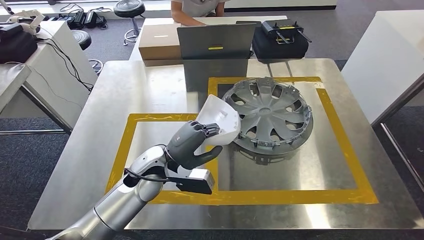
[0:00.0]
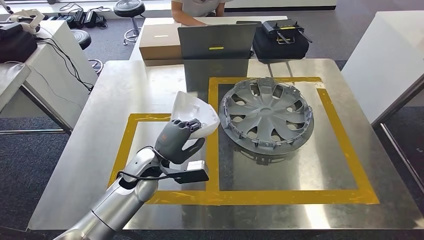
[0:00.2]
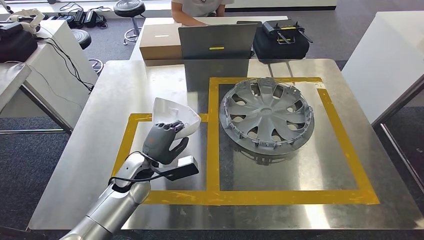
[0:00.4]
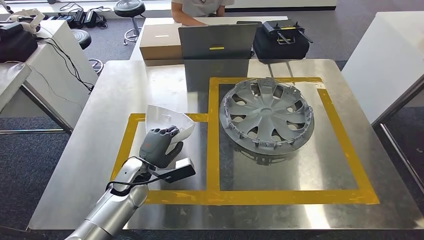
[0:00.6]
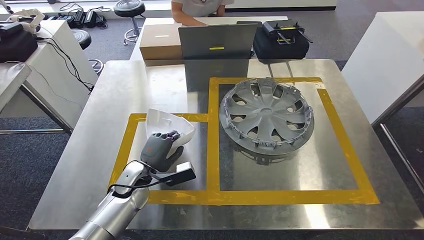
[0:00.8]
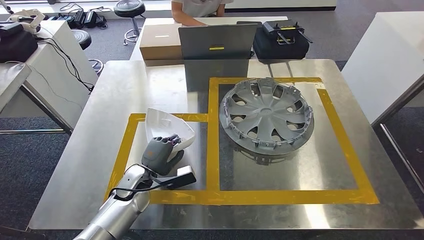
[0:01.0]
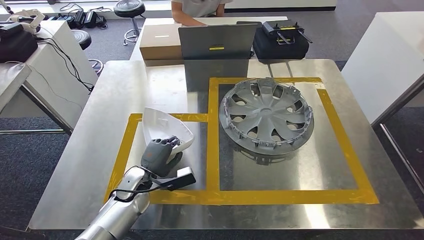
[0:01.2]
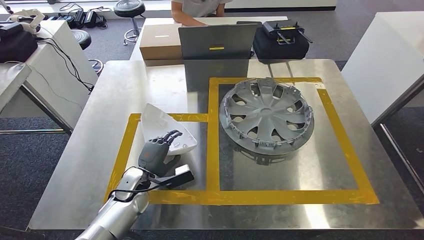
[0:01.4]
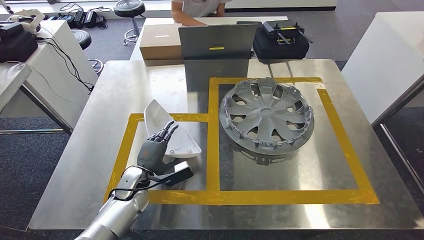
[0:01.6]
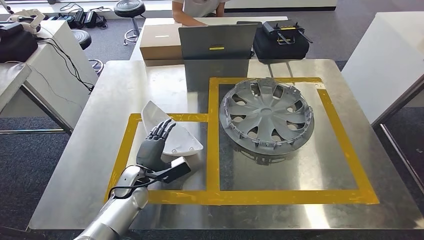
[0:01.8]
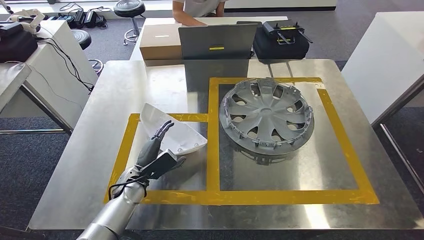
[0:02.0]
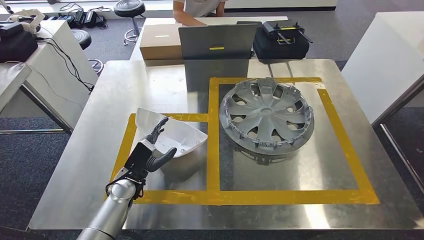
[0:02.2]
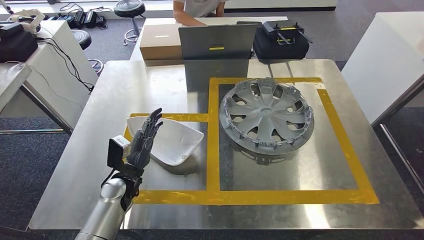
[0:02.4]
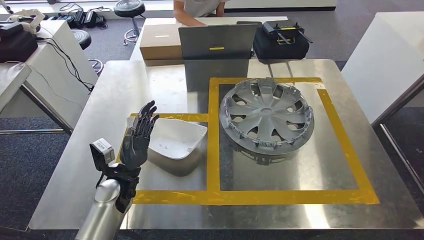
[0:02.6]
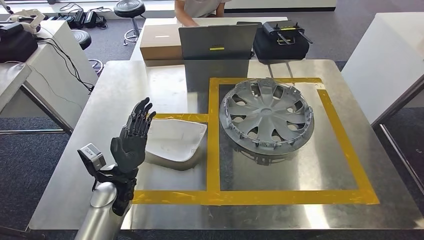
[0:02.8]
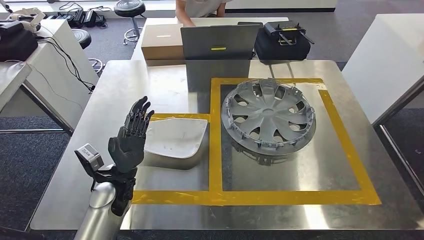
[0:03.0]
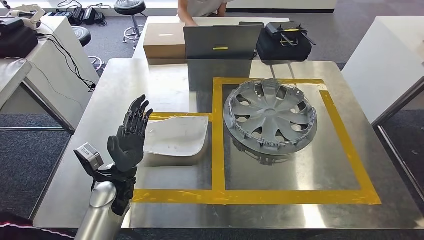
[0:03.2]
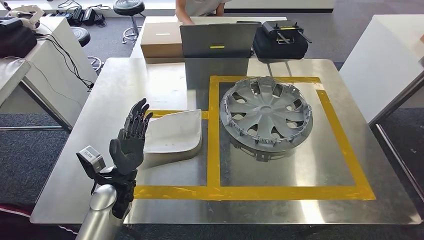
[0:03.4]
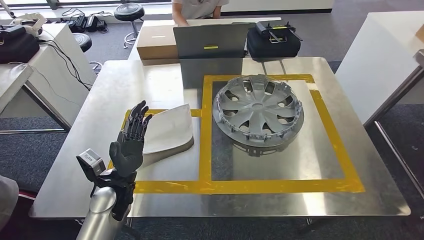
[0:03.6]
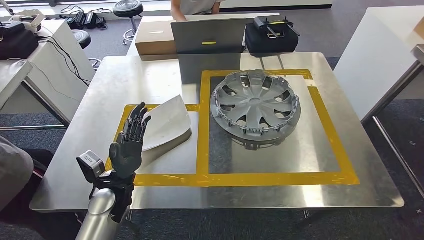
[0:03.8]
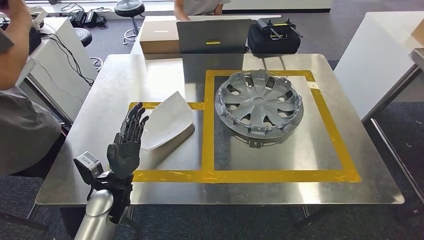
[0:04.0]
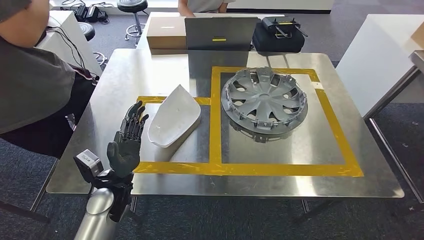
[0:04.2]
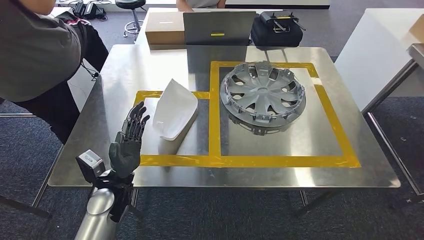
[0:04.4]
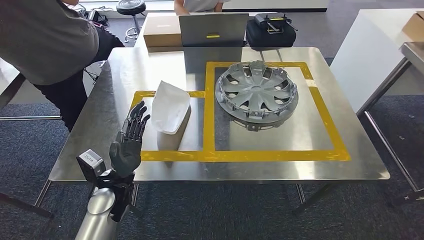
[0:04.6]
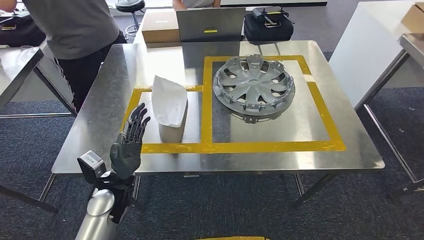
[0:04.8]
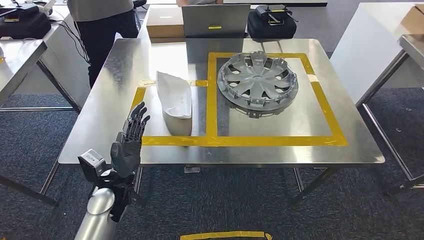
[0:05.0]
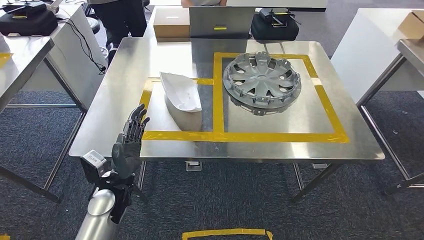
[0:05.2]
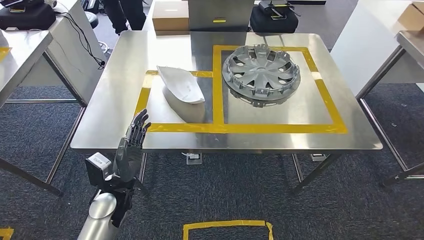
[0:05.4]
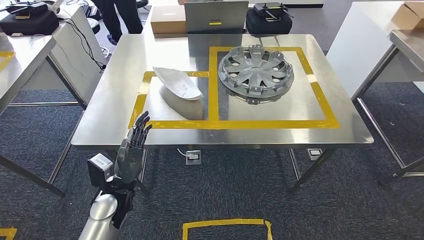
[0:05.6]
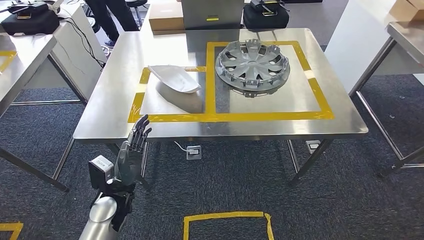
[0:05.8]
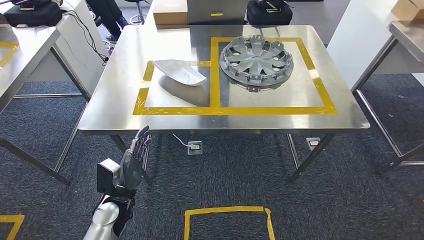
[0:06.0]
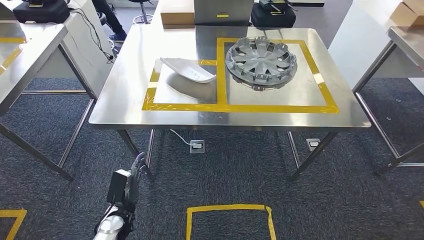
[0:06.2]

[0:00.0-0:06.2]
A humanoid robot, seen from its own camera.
Step, 0:00.0 to 0:03.4: Insert the small parts into the corresponding holes on the workbench.
Step, 0:03.6 to 0:06.2: Move to the initial position at the workbench.
0:00.0 to 0:01.6: The left hand is displaced downward and to the left by some 15 cm.

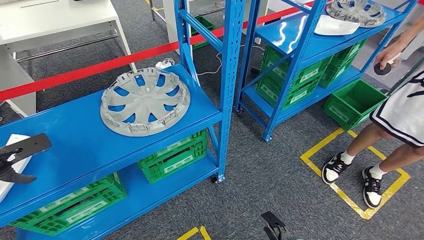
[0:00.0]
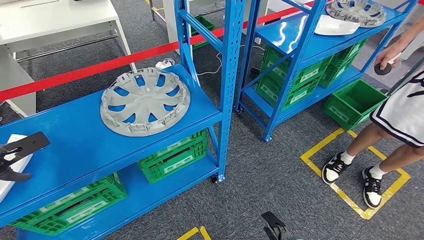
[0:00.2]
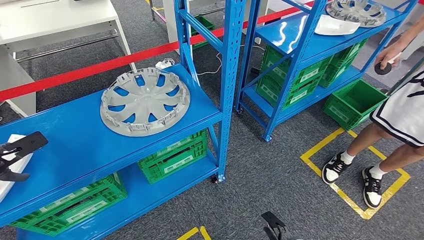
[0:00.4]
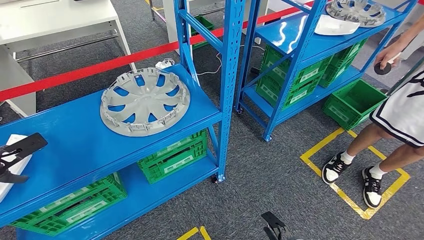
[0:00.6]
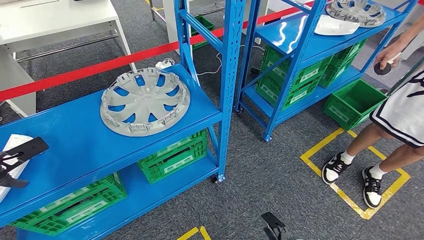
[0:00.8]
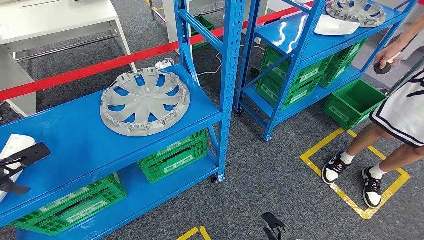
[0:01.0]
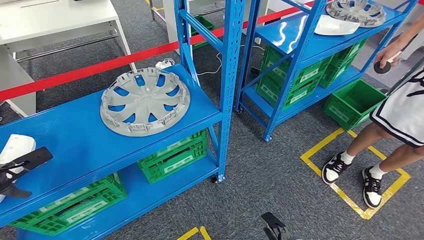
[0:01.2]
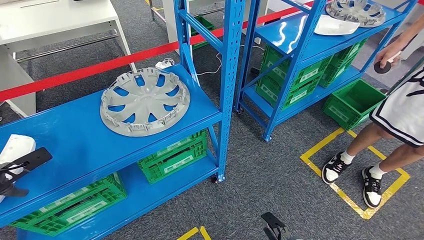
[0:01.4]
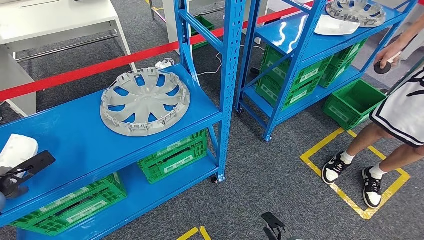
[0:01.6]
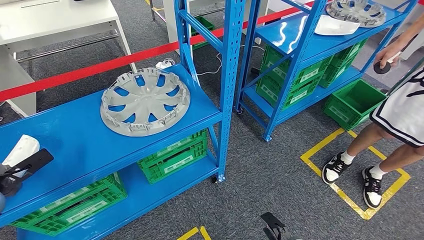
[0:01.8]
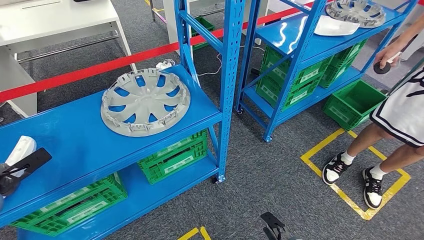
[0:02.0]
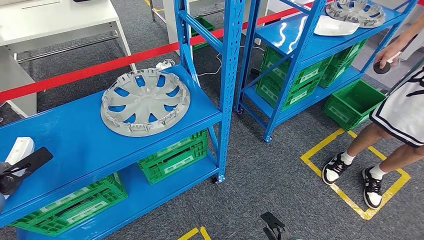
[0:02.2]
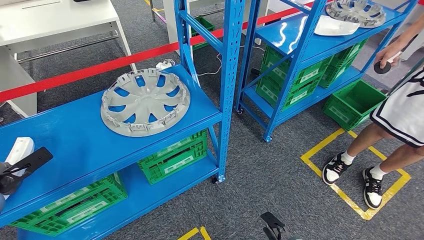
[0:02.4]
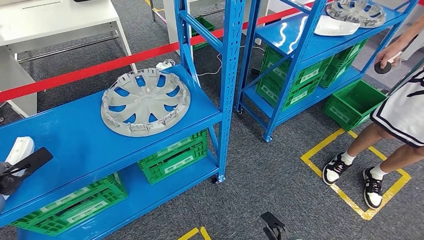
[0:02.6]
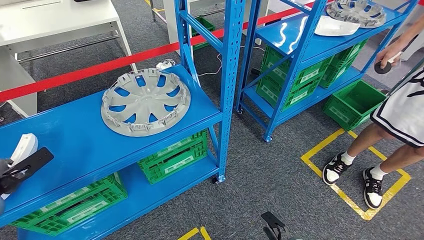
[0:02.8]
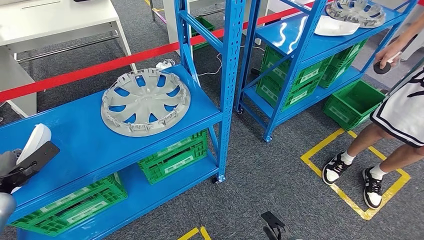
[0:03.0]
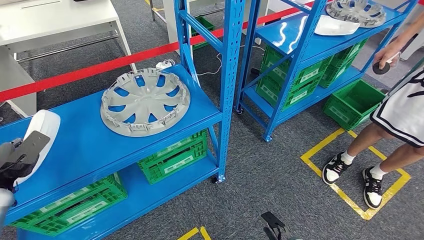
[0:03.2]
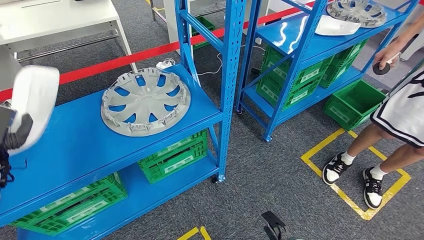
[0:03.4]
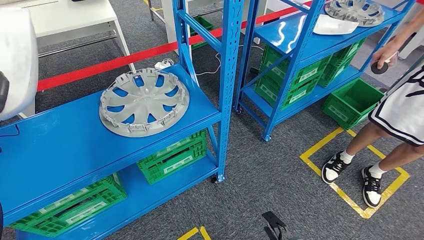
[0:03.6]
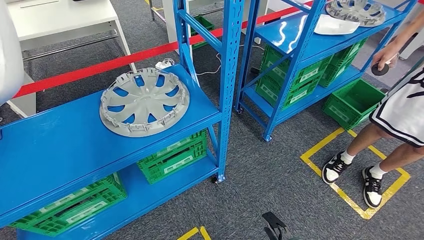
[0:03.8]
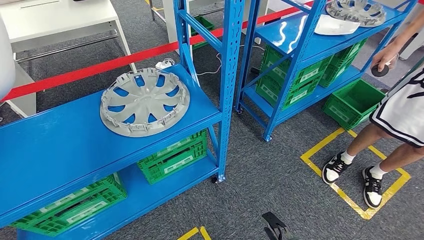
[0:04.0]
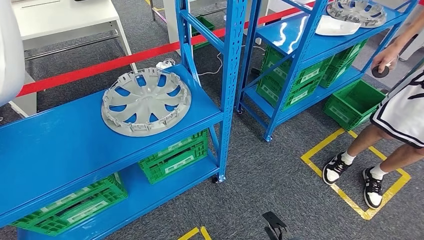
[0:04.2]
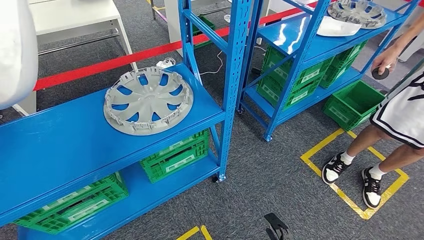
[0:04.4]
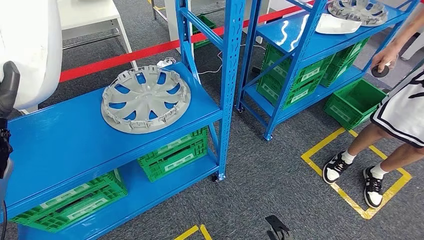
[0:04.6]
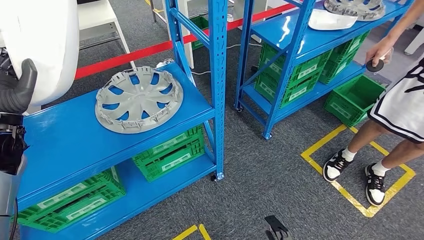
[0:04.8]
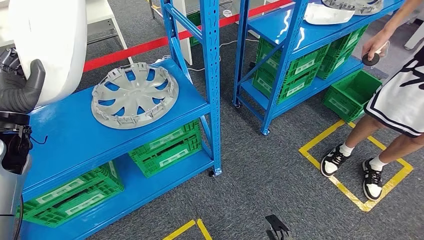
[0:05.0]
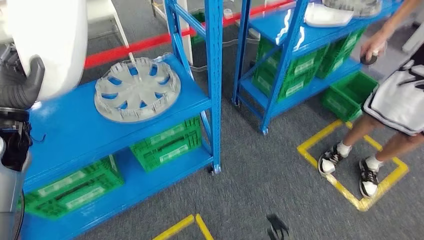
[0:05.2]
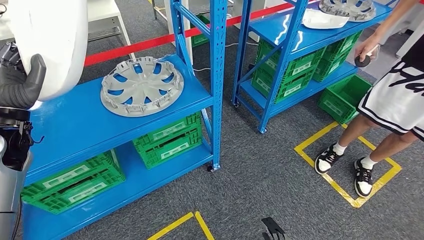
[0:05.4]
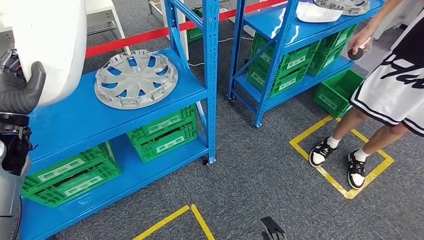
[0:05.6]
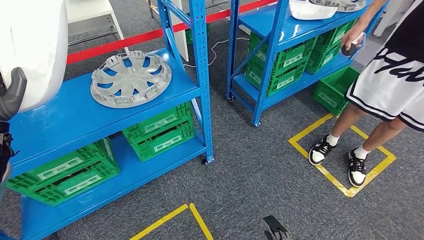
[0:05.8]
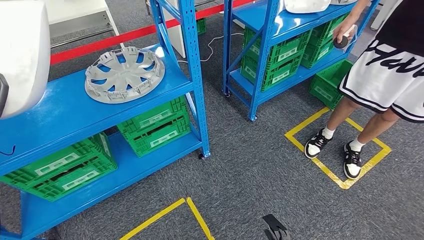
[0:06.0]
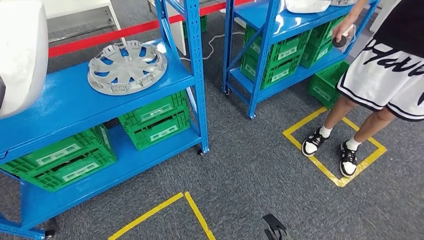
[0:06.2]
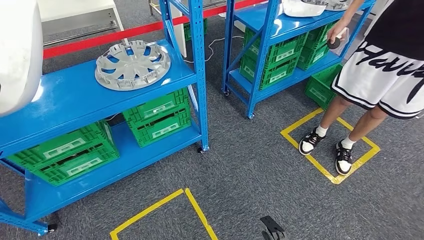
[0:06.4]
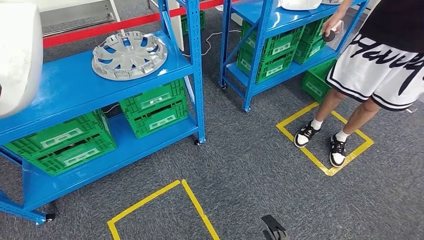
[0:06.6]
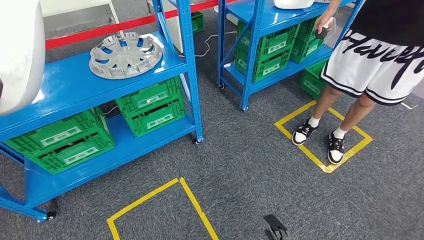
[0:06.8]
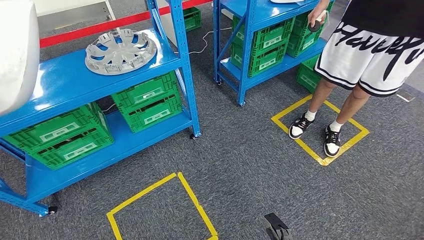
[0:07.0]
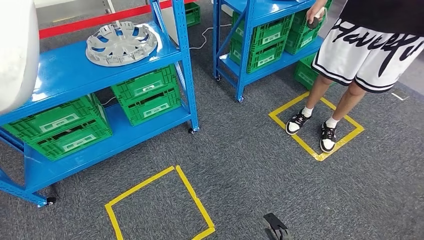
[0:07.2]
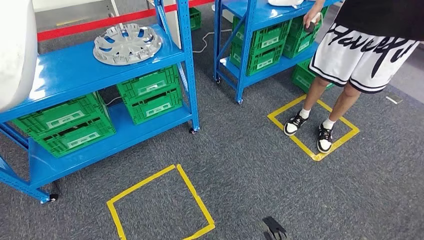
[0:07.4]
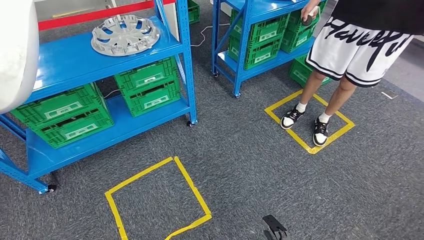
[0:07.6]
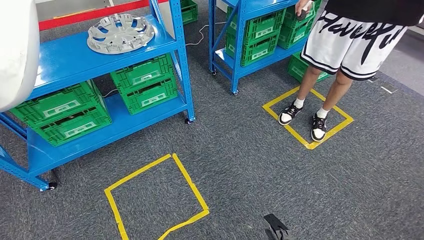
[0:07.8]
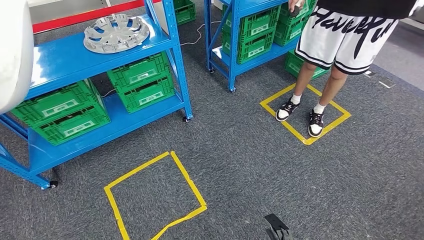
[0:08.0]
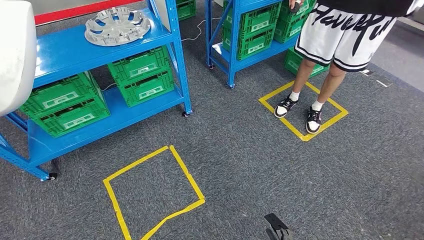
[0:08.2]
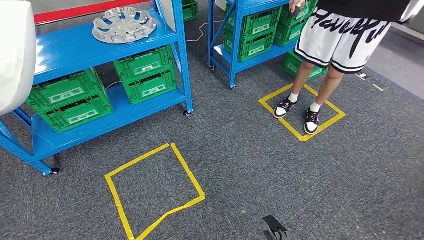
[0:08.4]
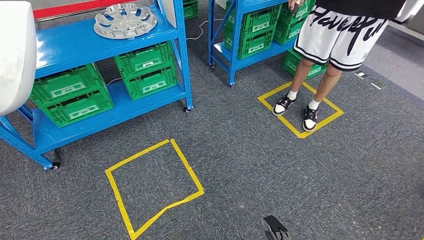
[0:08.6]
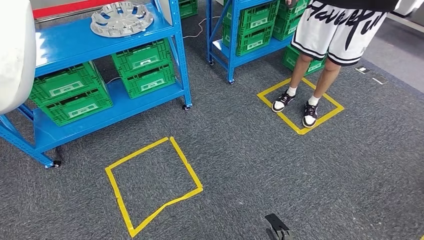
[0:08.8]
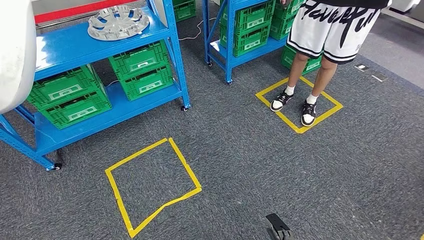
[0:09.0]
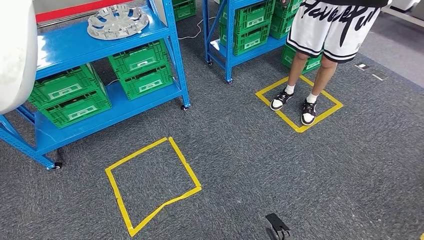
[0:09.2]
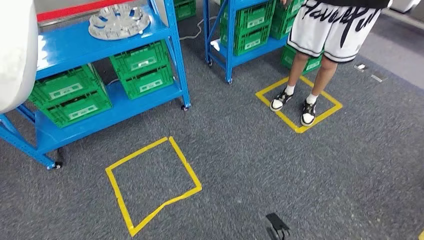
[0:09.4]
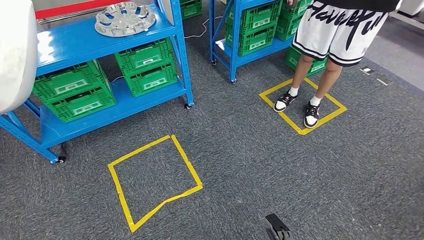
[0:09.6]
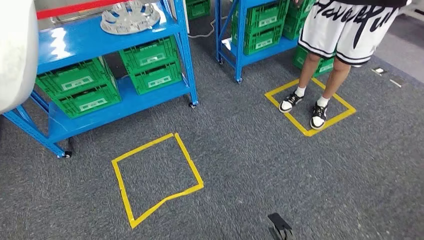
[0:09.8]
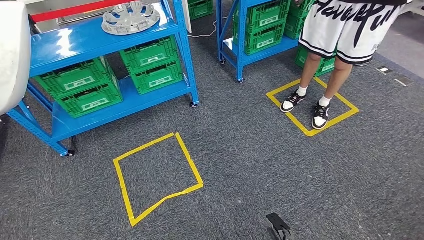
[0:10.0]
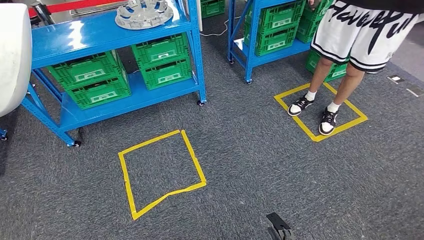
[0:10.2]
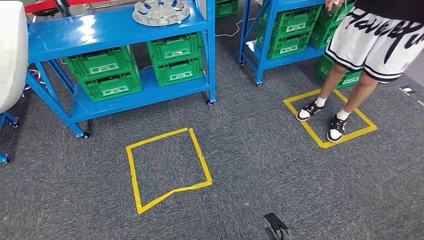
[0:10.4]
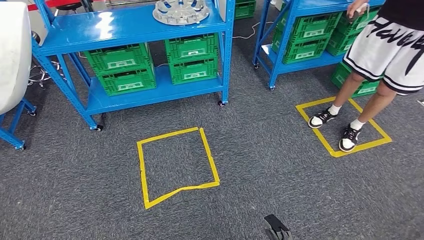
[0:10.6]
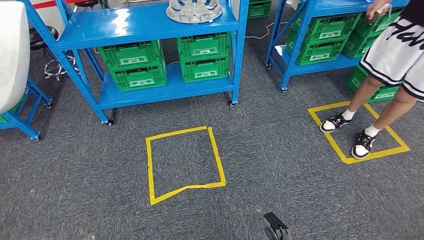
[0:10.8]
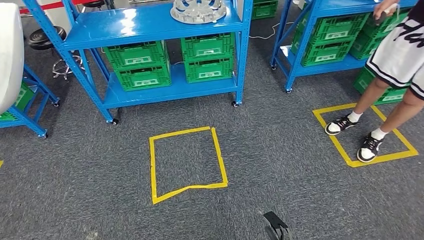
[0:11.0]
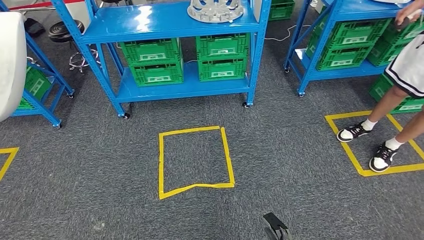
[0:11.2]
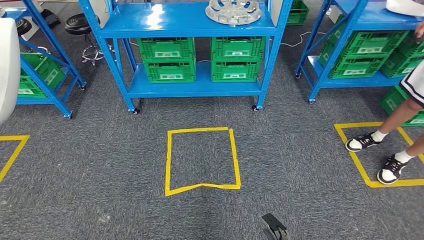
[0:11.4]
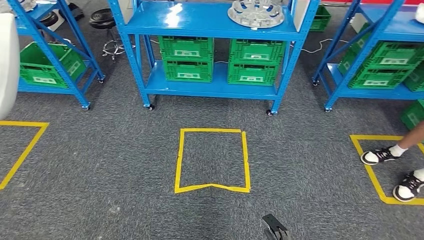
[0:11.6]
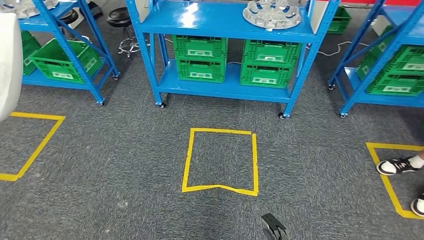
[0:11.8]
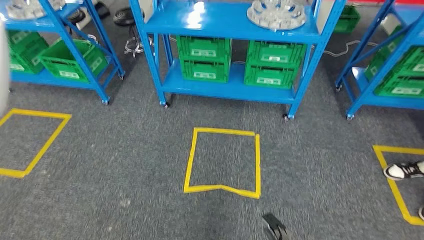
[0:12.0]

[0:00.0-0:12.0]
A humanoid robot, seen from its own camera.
Step, 0:00.0 to 0:04.4: Pick up the small parts from the shelf.
0:00.0 to 0:01.6: The left hand moves downward, about 5 cm.
0:03.0 to 0:04.4: The left hand heads upward and to the right, covering roughly 15 cm.
